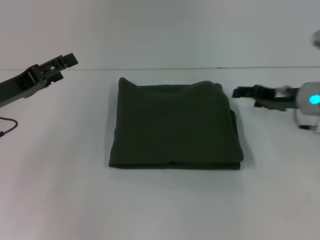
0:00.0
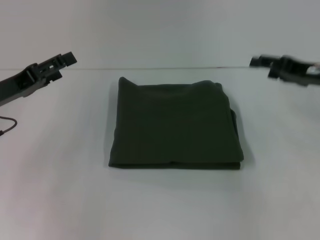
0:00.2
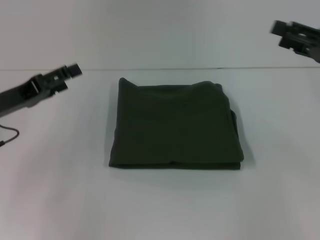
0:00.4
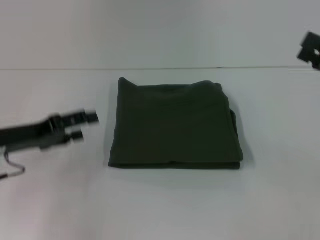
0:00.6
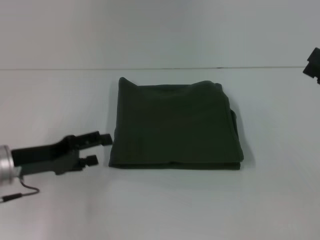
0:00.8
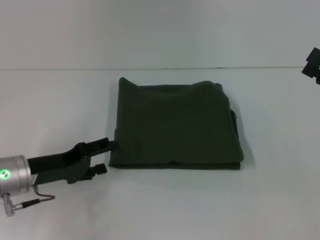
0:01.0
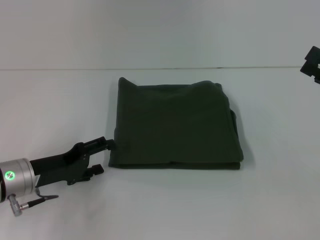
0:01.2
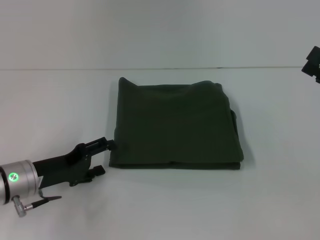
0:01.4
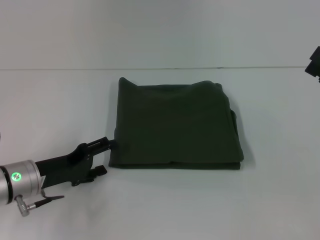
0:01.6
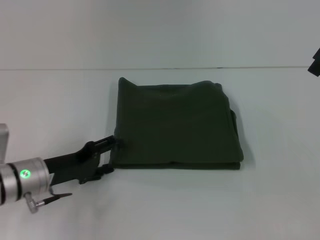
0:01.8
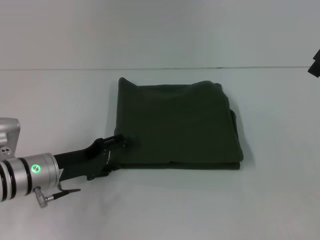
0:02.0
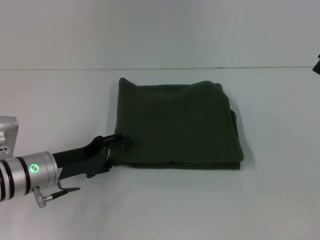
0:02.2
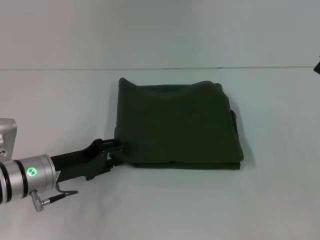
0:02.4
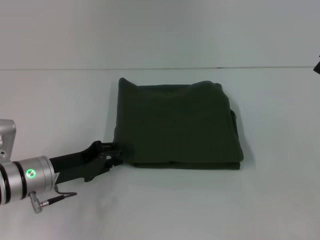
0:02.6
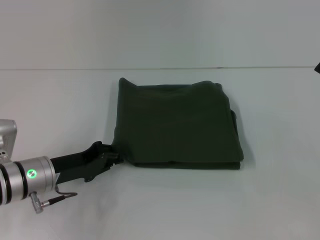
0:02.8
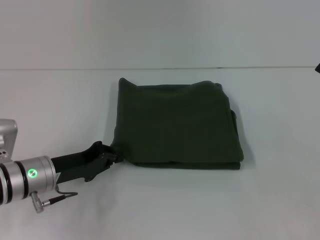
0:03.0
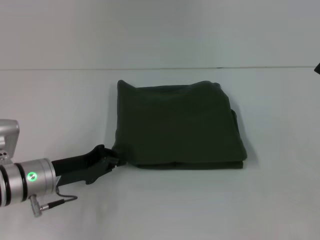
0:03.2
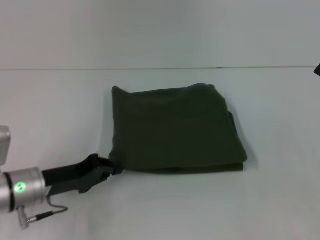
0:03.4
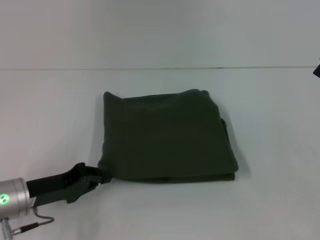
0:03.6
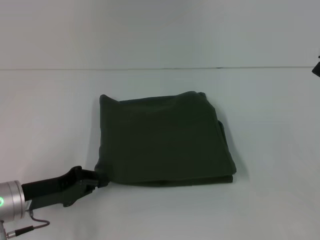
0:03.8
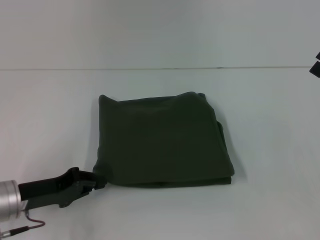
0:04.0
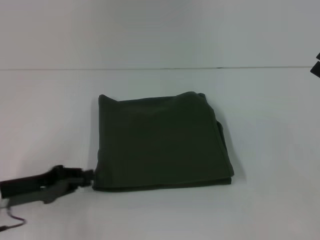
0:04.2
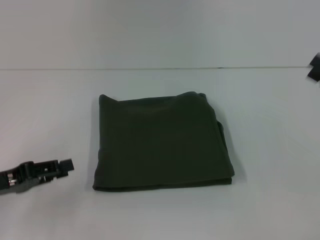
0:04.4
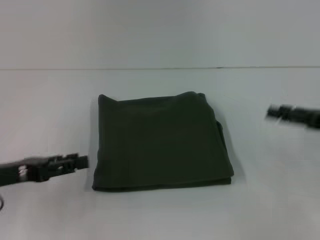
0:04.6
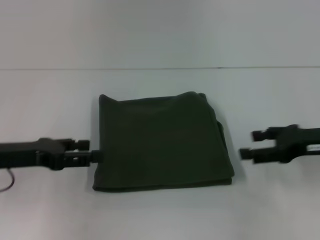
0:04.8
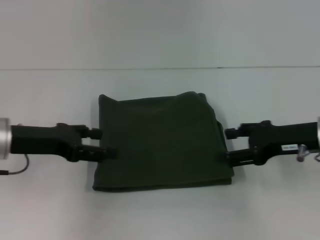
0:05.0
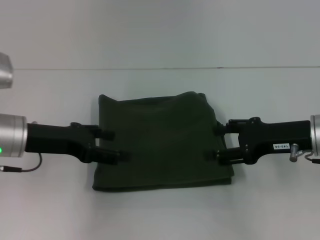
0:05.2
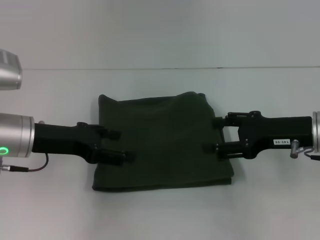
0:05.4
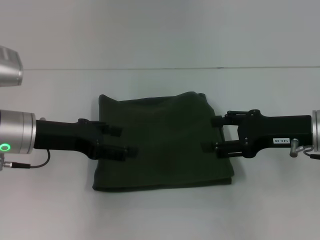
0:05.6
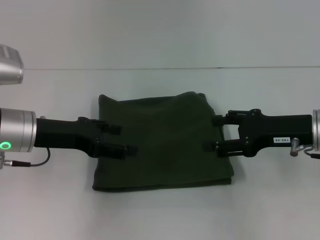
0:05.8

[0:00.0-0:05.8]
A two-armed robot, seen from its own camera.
0:00.0 to 0:01.4: The right gripper heads backward and to the right, covering some 15 cm, while the left gripper is displaced downward by approximately 10 cm.
0:01.4 to 0:02.8: The left gripper closes.
0:02.8 to 0:04.4: The left gripper is displaced to the left and backward by approximately 10 cm.
0:04.4 to 0:05.8: The left gripper is displaced forward, to the right and upward by about 15 cm, and opens up. Meanwhile the right gripper is displaced to the left by about 10 cm.

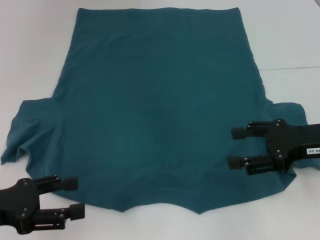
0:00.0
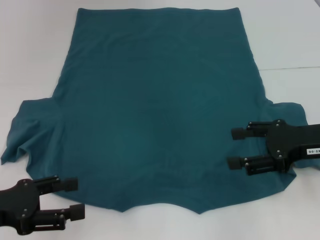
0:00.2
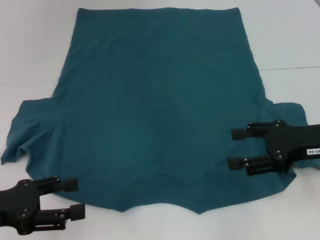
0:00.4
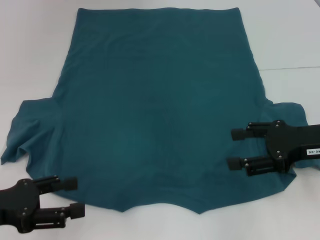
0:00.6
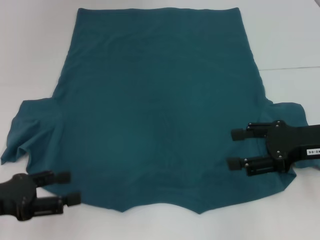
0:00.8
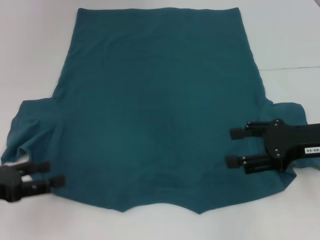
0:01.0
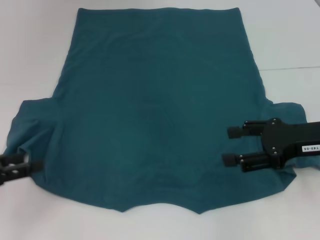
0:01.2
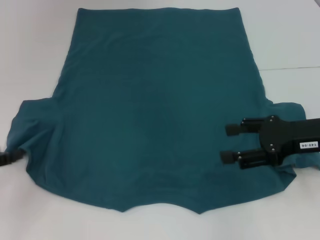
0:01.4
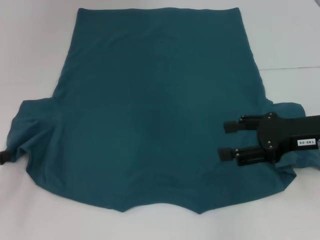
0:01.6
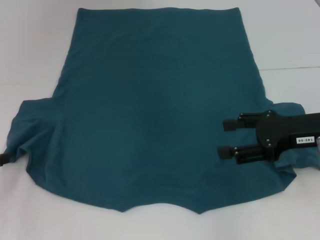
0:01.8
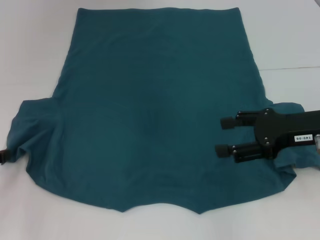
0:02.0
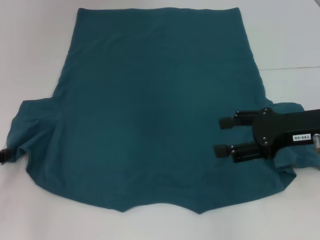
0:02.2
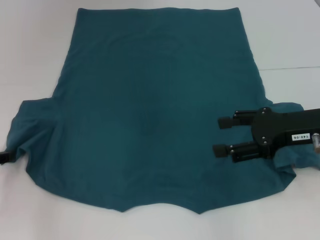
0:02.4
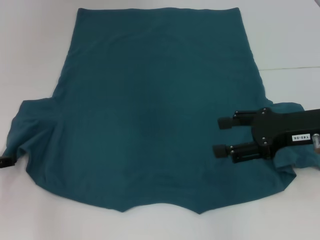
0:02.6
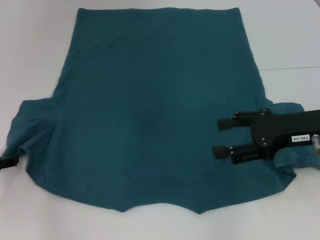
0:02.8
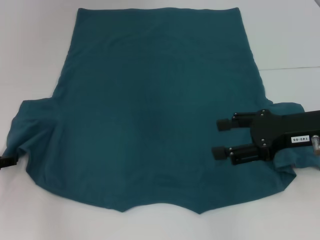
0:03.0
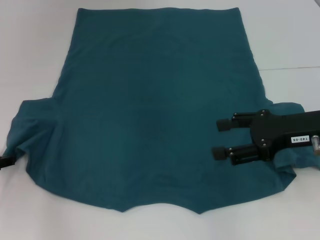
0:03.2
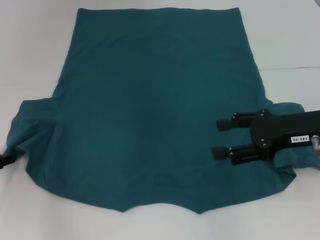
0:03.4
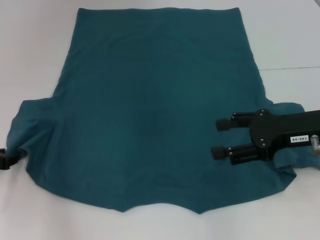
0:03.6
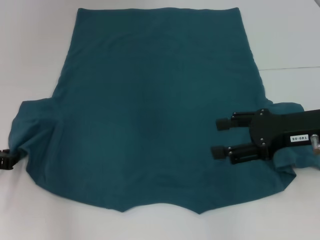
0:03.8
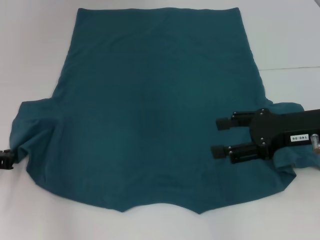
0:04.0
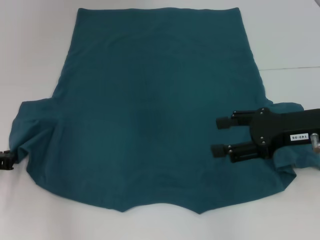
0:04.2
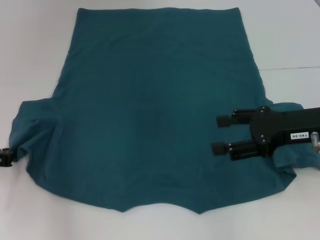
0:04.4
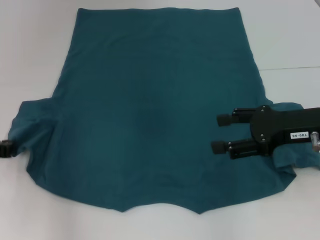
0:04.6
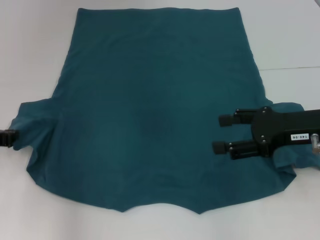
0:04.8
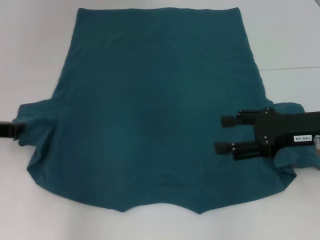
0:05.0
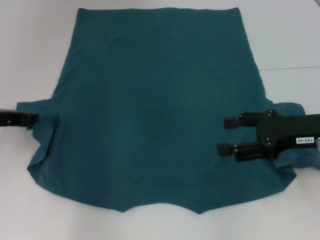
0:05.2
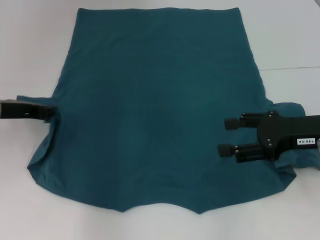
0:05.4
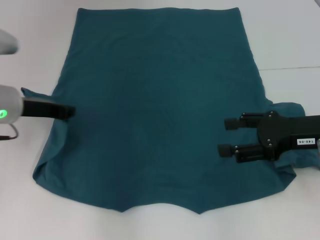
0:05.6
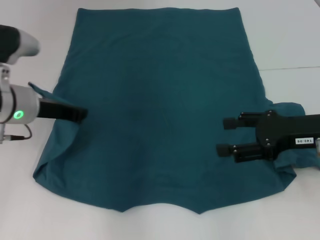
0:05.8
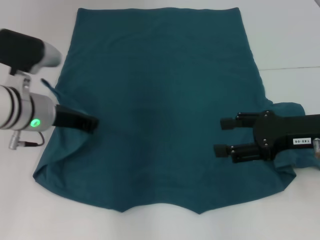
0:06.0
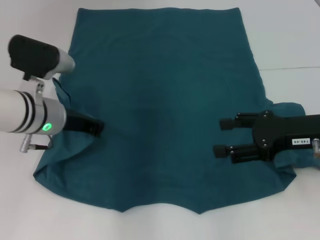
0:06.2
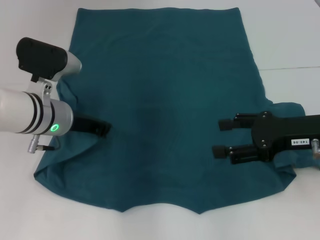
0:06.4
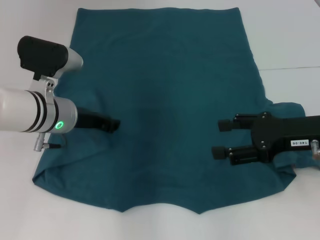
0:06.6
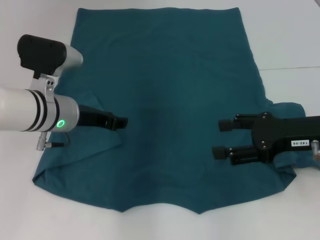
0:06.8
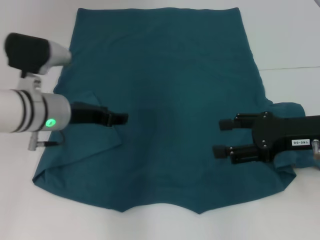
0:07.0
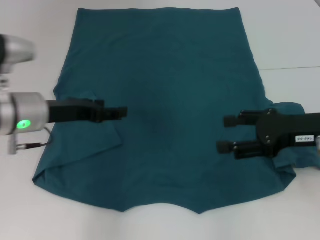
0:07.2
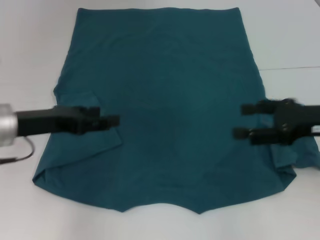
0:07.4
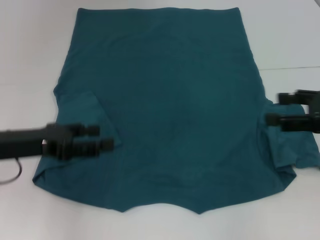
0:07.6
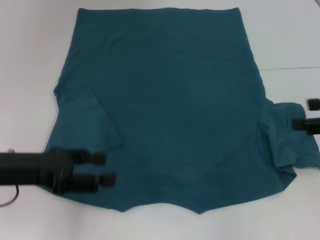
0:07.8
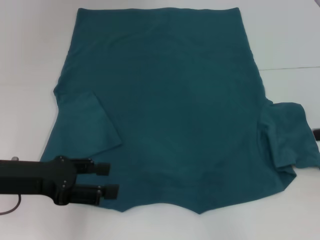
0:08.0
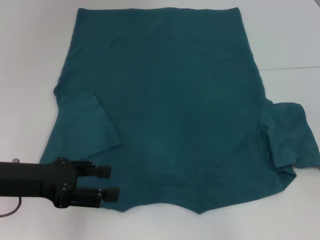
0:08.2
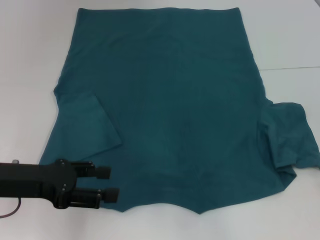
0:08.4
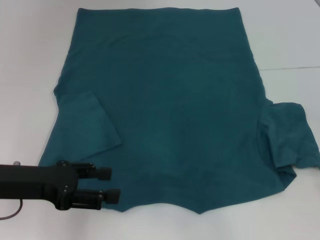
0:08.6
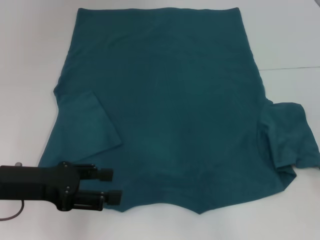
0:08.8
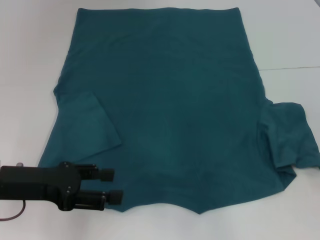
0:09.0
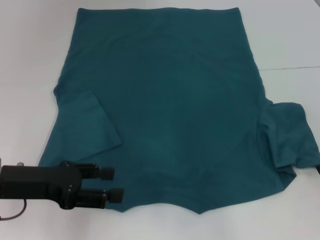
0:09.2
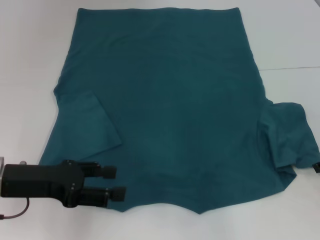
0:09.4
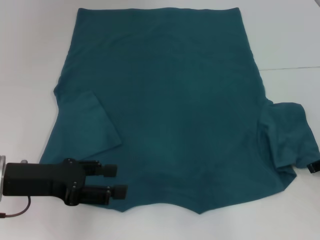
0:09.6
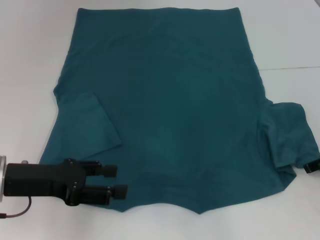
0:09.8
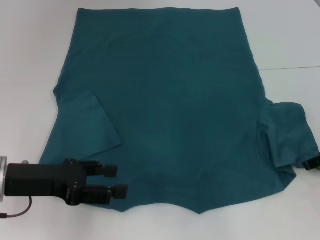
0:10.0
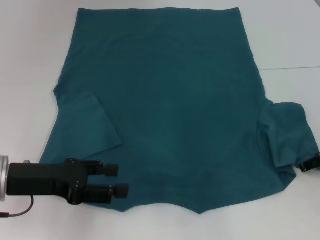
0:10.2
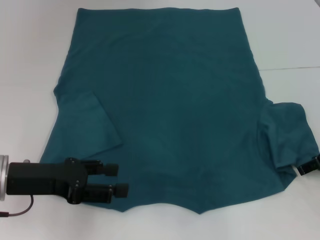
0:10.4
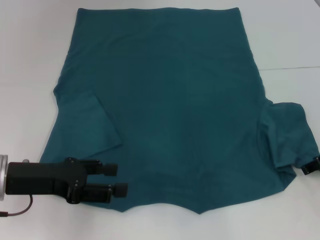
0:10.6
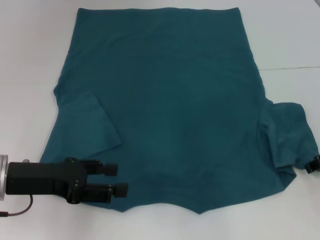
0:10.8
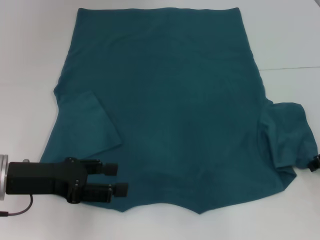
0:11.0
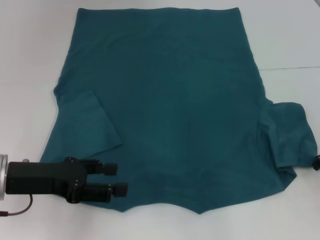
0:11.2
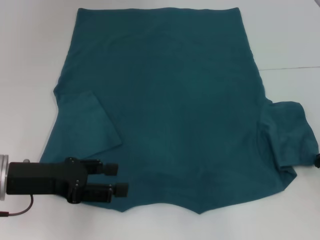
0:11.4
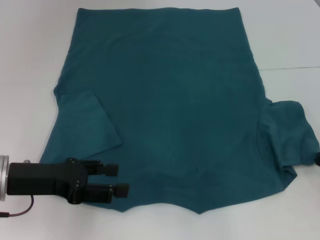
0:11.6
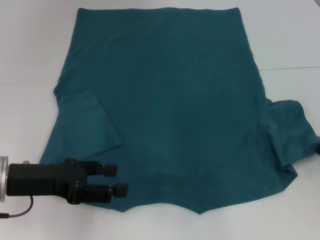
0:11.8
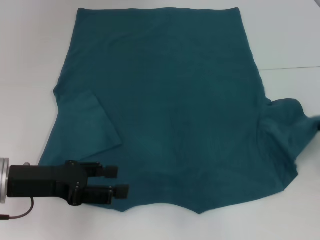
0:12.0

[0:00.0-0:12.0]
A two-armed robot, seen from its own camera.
Step, 0:00.0 to 0:07.0: Fold the bottom left sleeve with your left hand.
0:00.0 to 0:01.6: The left gripper shifts some 5 cm to the left.
0:04.4 to 0:06.0: The left gripper heads to the right, upward and forward, covering roughly 15 cm.
0:06.0 to 0:07.6: The left gripper heads to the left and backward, covering about 10 cm, and opens its fingers. The right gripper goes about 5 cm to the right.
0:09.0 to 0:10.4: The grippers stay close to where they were, moving slightly.
0:10.4 to 0:12.0: The right gripper closes up.

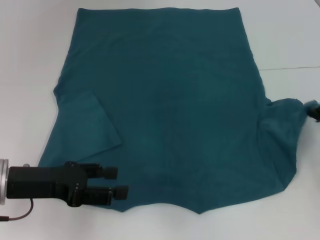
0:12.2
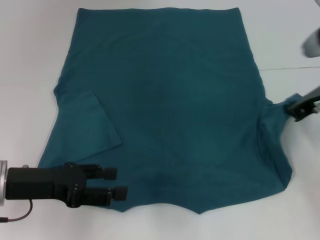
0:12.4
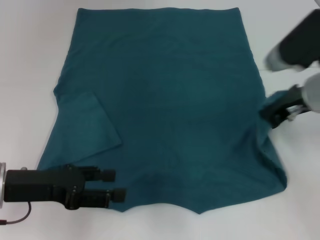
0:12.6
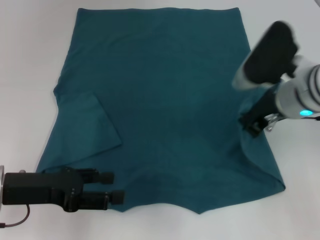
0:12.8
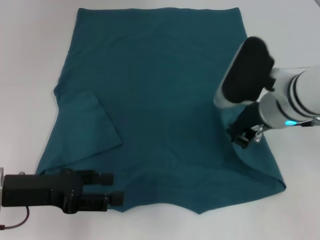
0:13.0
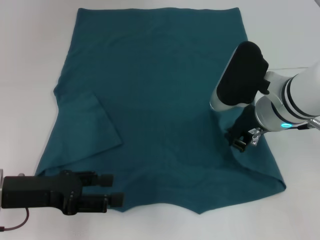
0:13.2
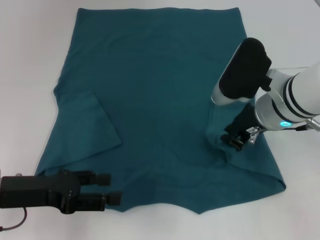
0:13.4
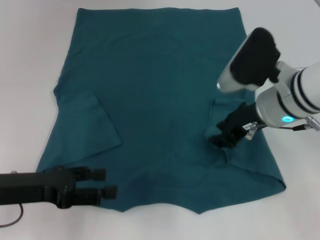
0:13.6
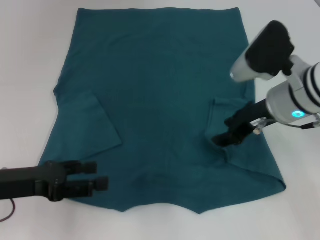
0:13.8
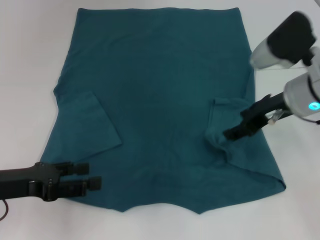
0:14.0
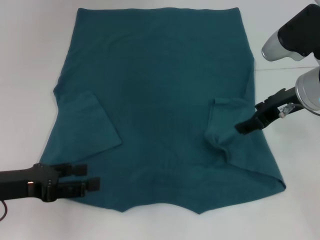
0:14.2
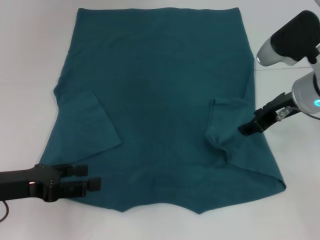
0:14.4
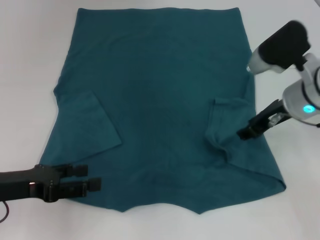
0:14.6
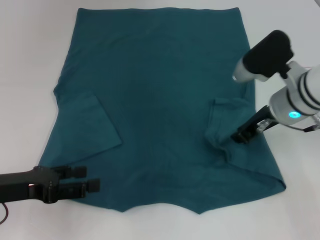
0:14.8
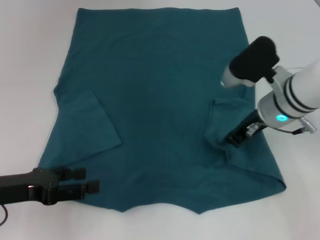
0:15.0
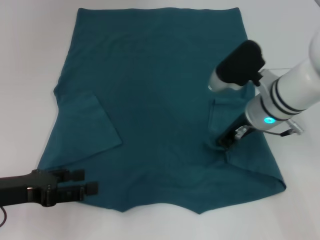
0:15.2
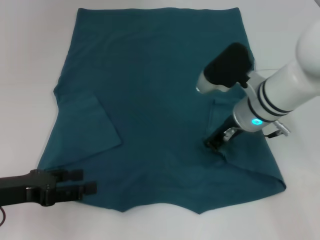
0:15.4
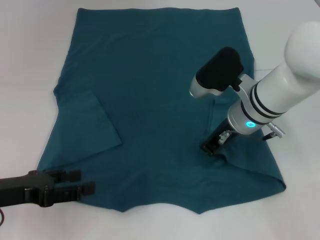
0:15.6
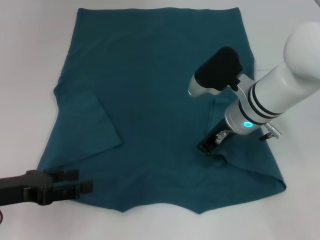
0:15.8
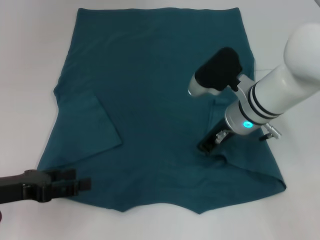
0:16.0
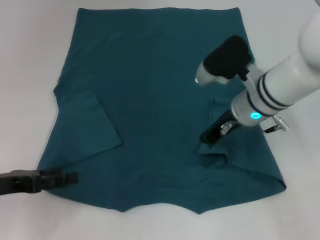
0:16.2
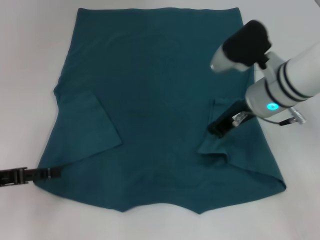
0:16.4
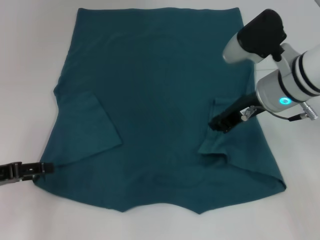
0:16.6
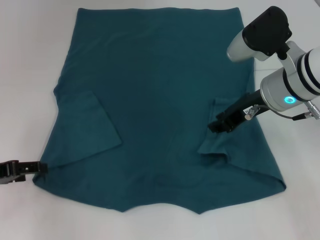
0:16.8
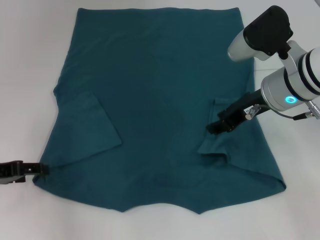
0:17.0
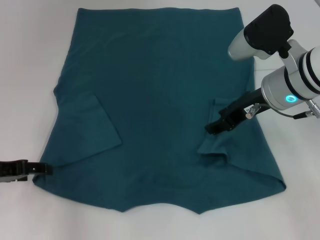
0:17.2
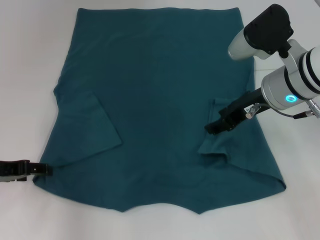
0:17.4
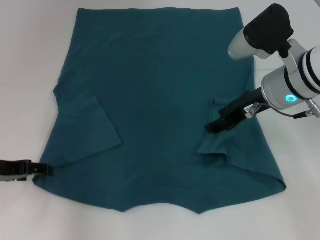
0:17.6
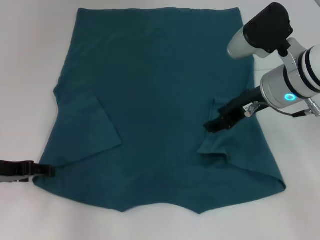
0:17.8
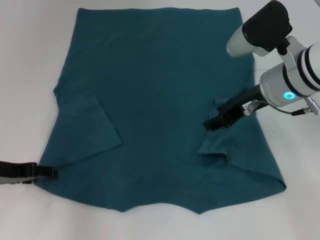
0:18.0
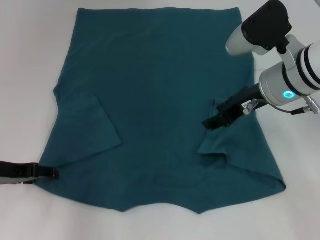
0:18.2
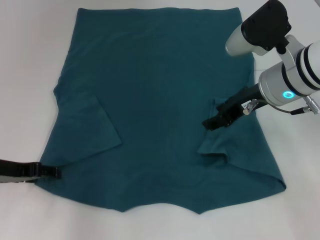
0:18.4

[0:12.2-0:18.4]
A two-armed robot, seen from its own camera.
0:12.2 to 0:13.8: The right gripper moves to the left, some 10 cm, and opens.
0:13.8 to 0:15.4: The right gripper ends up about 5 cm from where it was, and closes up.
0:15.4 to 0:16.8: The left gripper changes place by roughly 5 cm, while the right gripper heads upward, covering about 5 cm.
0:16.8 to 0:18.4: The right gripper opens its fingers.
